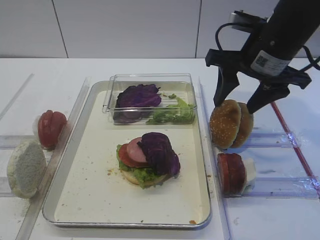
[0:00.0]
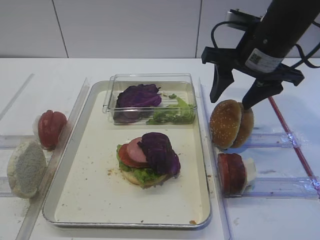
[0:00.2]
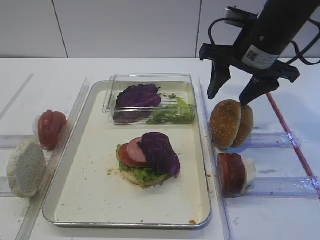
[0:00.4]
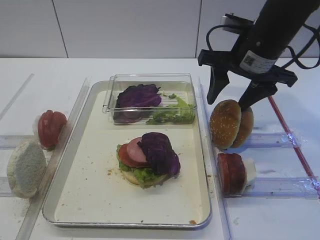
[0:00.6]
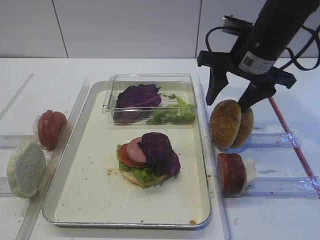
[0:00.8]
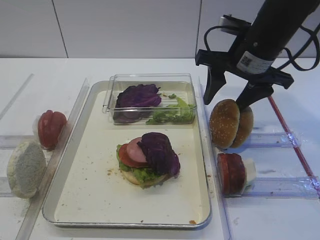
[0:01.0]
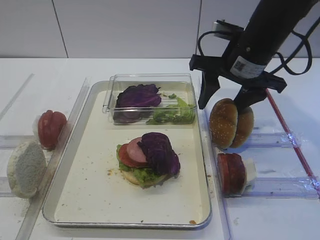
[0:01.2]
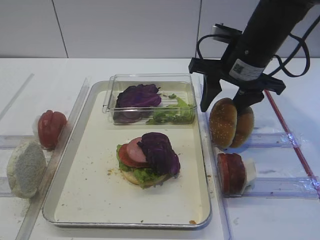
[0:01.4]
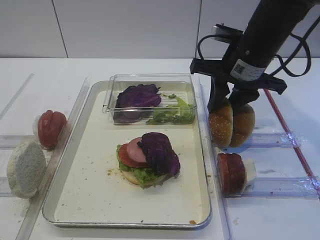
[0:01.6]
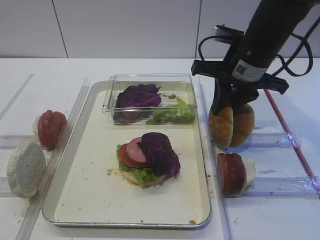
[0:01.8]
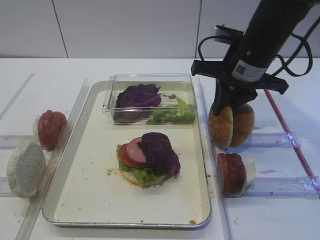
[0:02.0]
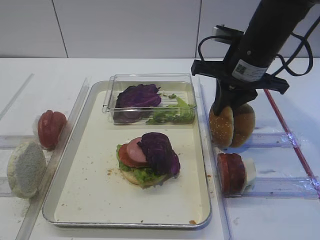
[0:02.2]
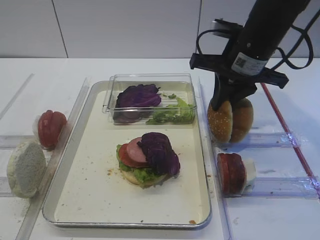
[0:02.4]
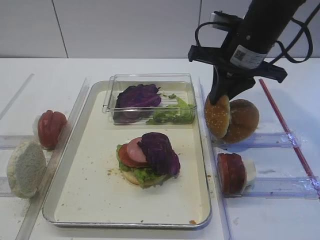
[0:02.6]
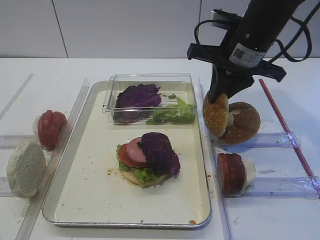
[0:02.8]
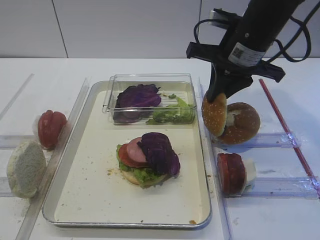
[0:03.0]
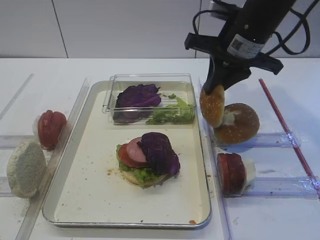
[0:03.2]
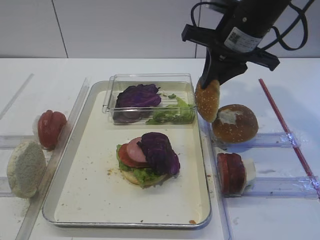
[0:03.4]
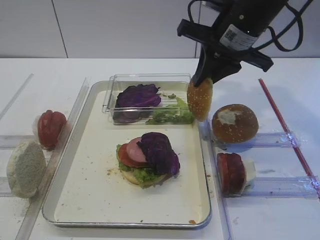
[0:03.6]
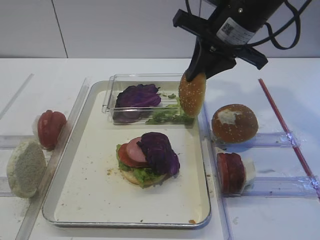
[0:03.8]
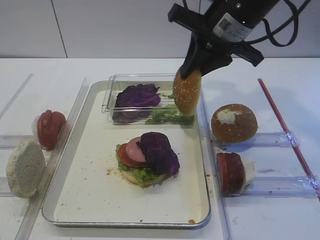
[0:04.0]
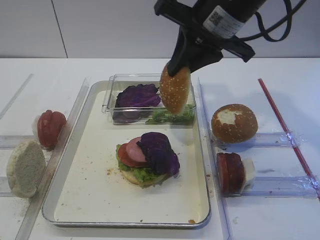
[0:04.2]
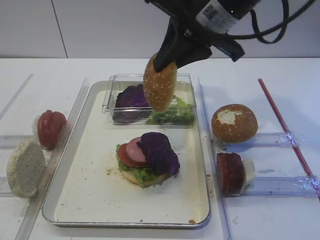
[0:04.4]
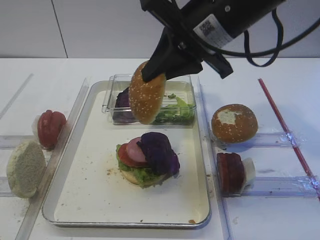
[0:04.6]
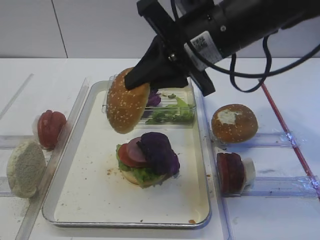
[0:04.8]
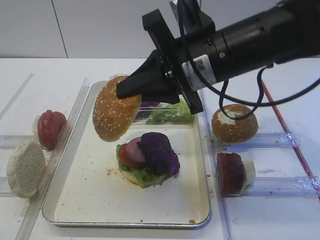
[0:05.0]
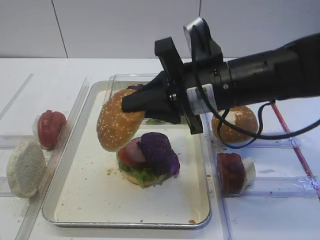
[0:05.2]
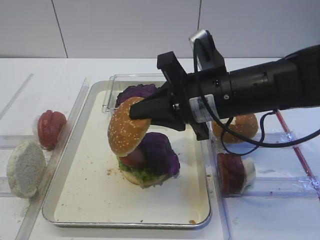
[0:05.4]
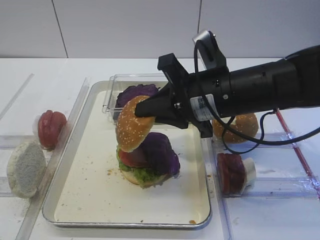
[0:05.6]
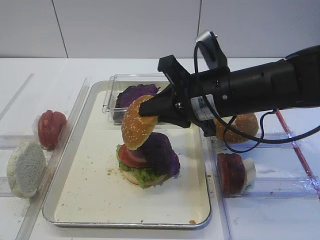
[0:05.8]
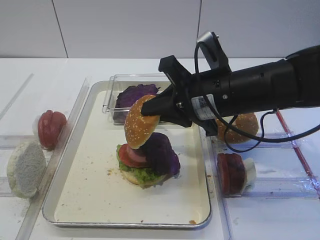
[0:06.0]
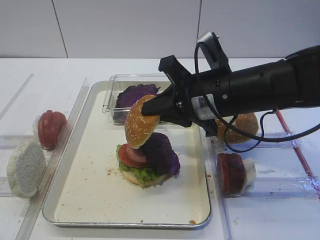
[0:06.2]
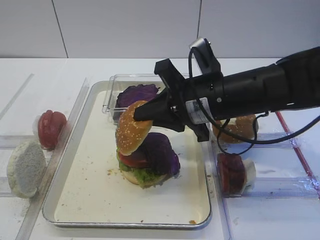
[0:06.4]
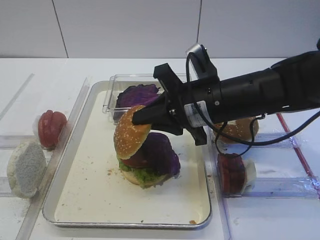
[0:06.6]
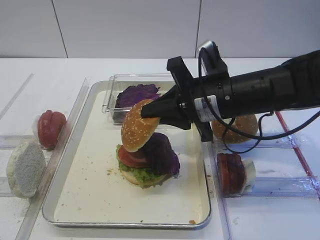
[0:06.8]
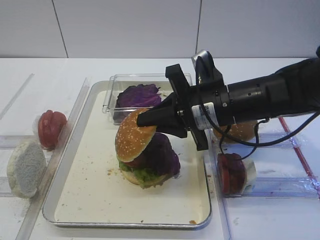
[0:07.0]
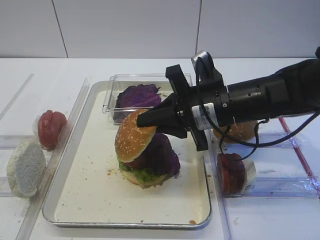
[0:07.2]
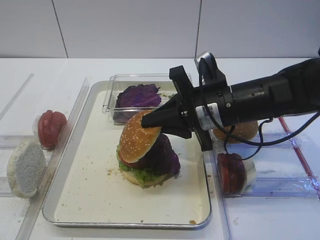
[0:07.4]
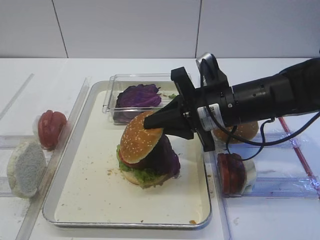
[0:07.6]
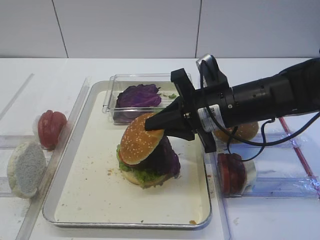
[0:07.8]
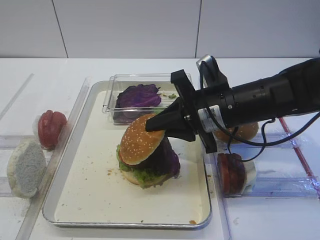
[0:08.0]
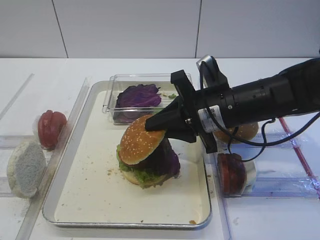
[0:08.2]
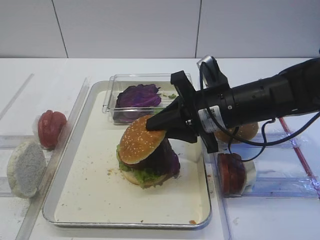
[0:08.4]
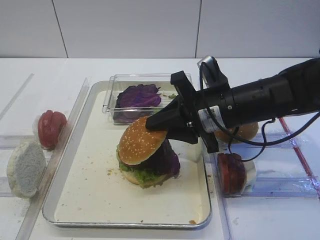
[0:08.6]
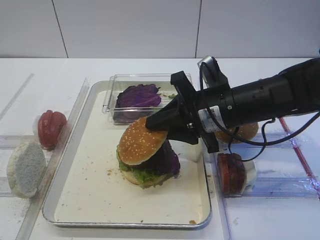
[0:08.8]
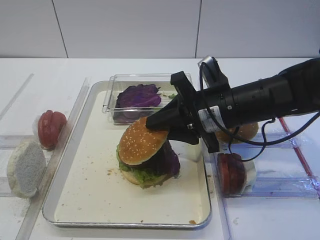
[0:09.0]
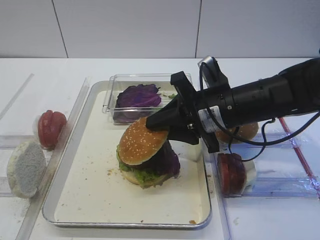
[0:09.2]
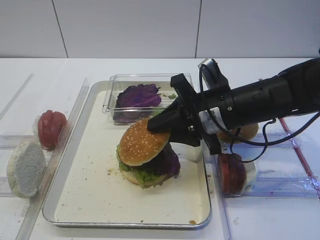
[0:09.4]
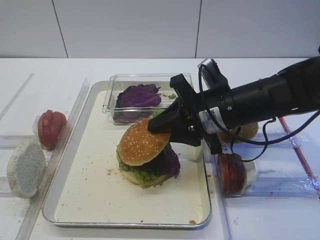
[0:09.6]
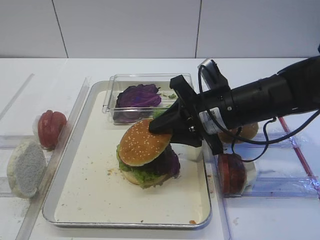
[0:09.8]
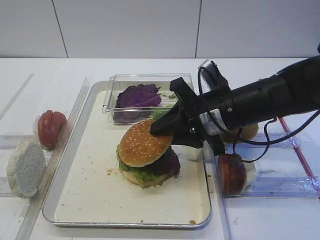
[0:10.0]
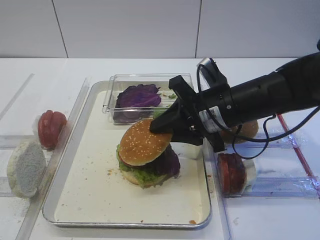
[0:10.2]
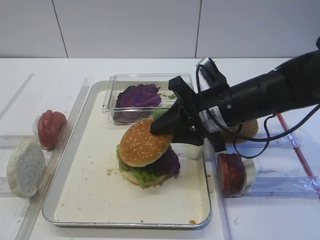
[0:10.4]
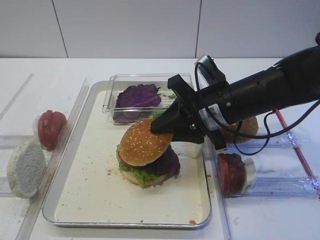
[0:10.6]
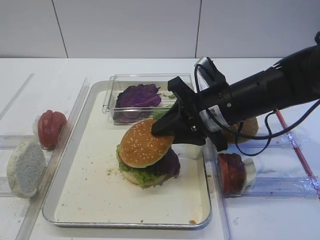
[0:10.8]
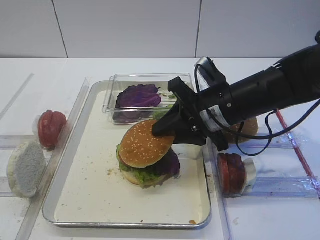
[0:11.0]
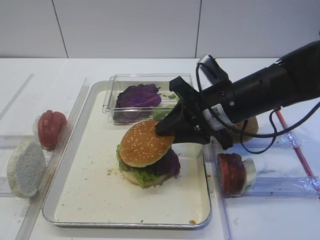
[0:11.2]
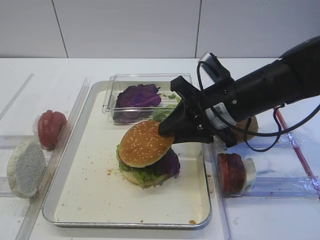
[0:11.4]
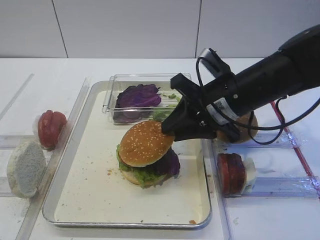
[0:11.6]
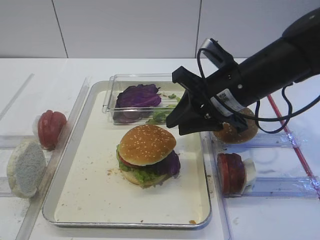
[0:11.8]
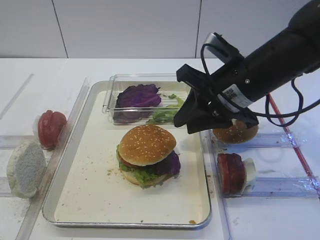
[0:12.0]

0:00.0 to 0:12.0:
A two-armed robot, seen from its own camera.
Step, 0:00.0 to 0:03.6: Pick up the hamburger lid with the right gripper.
0:00.0 to 0:01.6: The right gripper closes up.
0:01.6 to 0:03.0: The right gripper closes up.
0:03.0 to 0:04.4: The right gripper shifts some 5 cm upward.
0:04.4 to 0:06.0: The right gripper goes approximately 10 cm downward.
0:06.0 to 0:07.6: The grippers make only small movements.
0:07.6 to 0:09.0: The right gripper opens.
0:09.0 to 0:10.4: There are only small adjustments of the grippers.
0:10.4 to 0:12.0: The right gripper moves some 5 cm.

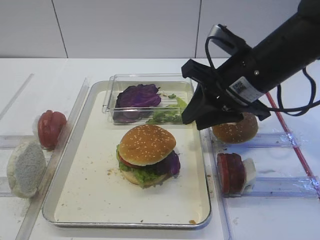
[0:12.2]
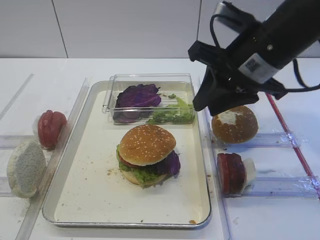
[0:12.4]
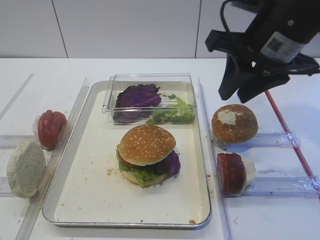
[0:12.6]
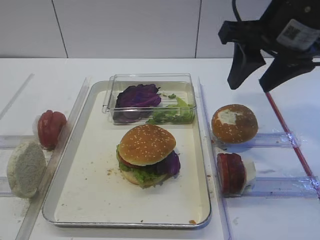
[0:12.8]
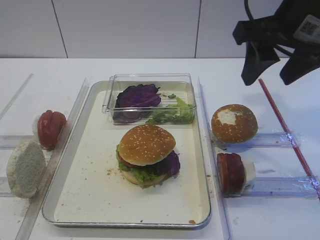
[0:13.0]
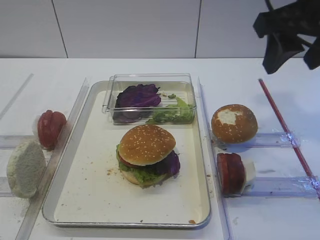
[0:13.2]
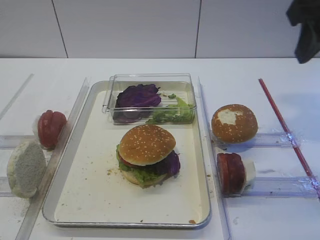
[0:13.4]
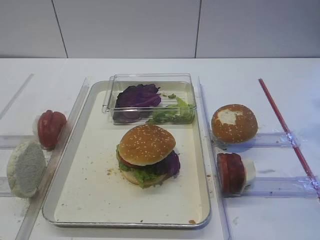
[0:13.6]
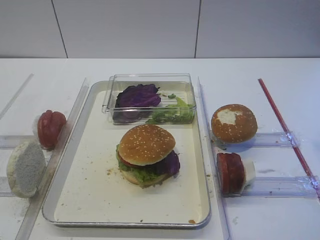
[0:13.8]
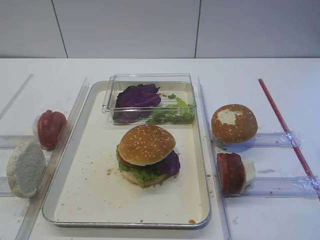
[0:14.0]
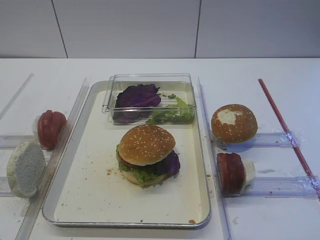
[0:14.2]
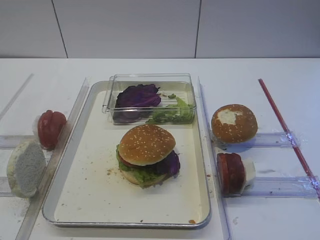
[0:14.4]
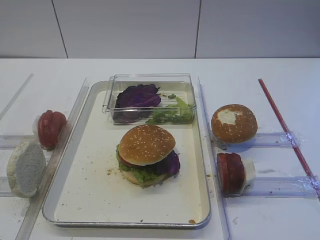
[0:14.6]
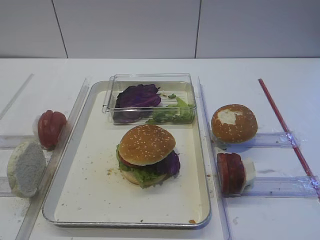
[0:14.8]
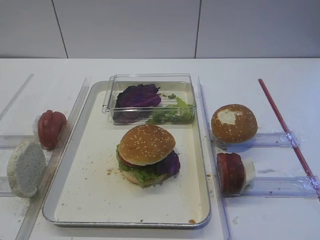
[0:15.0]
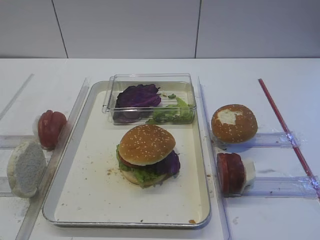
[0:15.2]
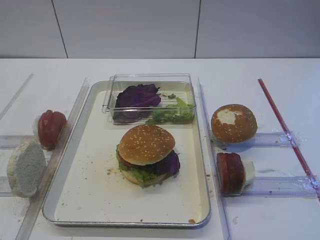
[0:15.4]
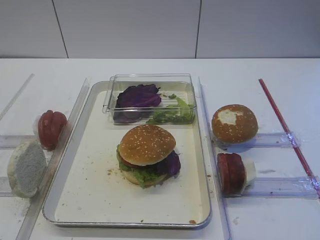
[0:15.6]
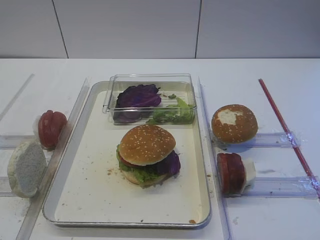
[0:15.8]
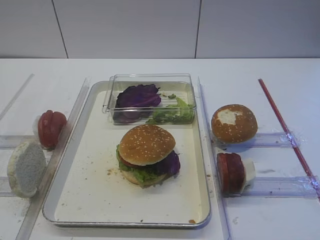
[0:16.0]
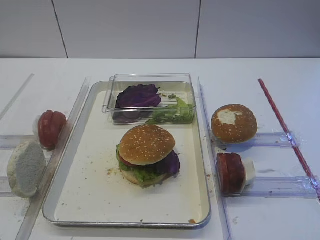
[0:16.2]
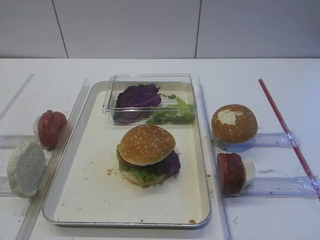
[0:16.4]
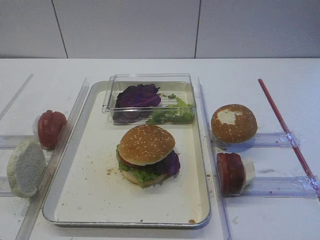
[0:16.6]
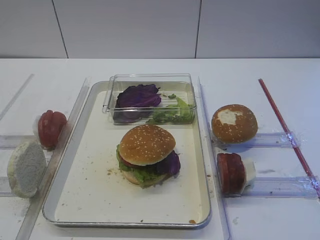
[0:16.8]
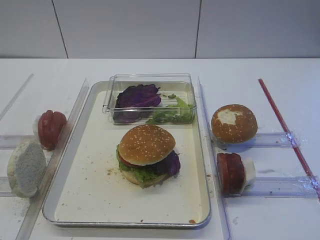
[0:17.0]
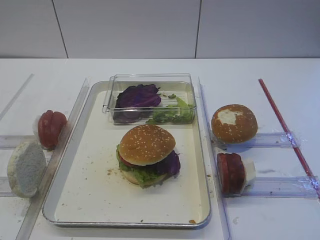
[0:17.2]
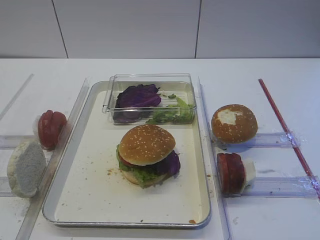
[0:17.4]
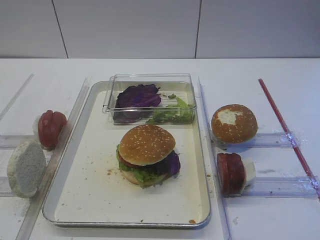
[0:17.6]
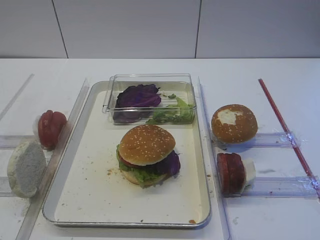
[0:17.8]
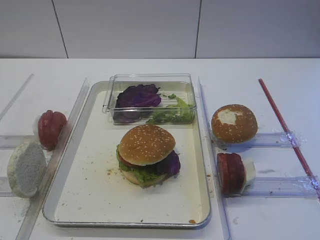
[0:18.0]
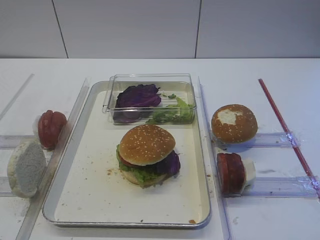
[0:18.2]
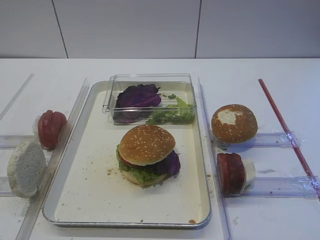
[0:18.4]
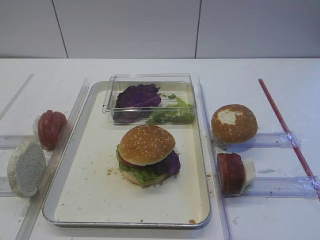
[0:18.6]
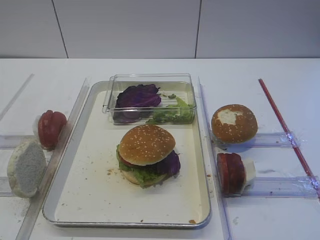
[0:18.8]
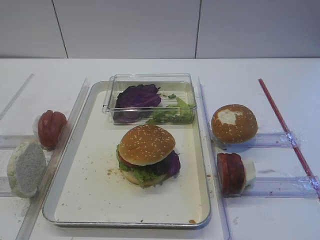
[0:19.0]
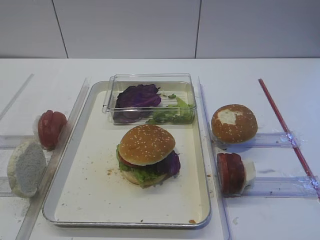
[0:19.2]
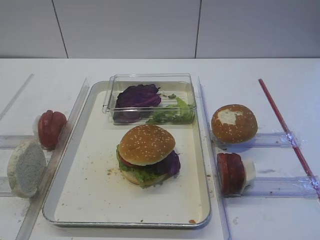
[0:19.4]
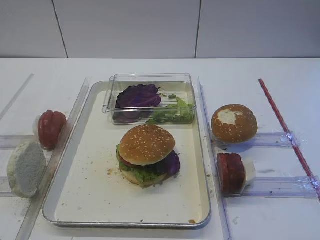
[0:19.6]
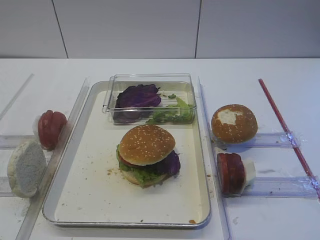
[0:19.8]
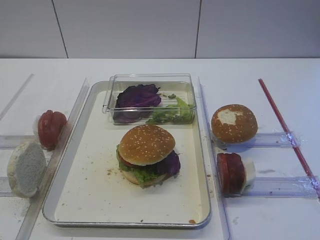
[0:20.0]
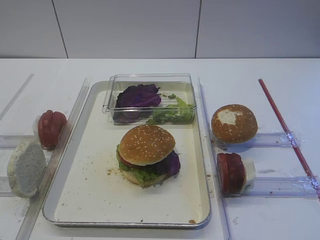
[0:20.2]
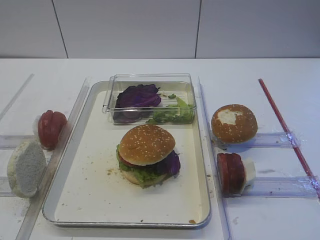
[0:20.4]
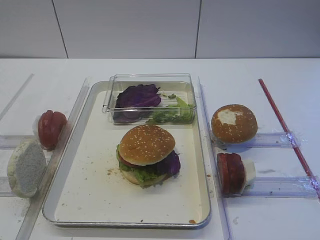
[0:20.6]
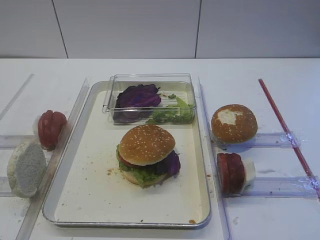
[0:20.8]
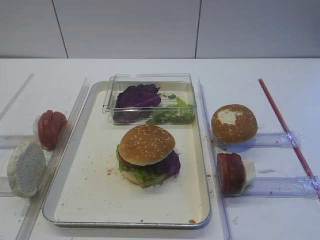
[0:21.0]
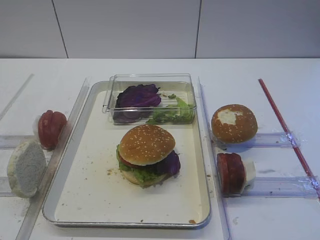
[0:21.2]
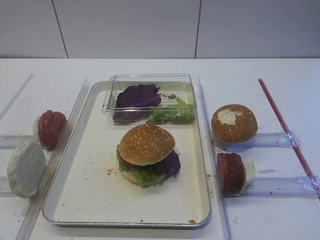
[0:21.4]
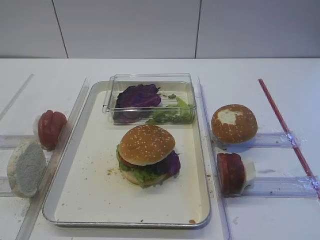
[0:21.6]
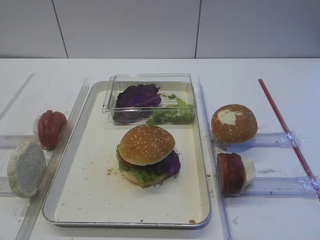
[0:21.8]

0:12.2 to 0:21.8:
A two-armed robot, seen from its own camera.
0:12.2 to 0:13.8: The right gripper shifts about 20 cm to the right, upward and backward, and opens.
0:17.0 to 0:21.8: Both grippers stay put.

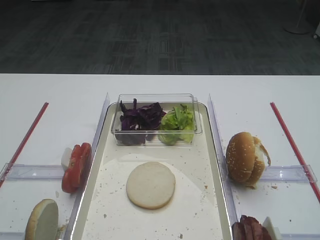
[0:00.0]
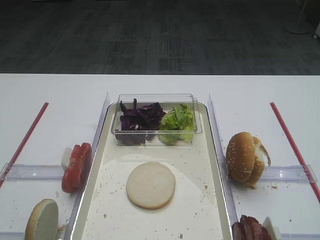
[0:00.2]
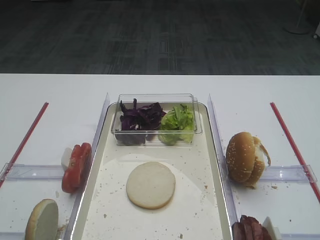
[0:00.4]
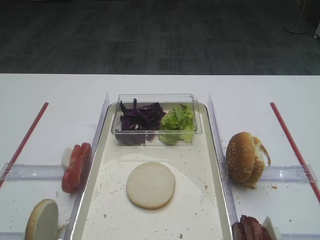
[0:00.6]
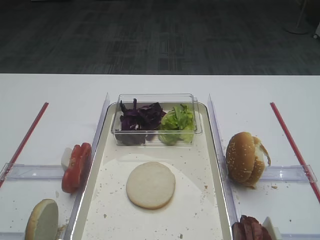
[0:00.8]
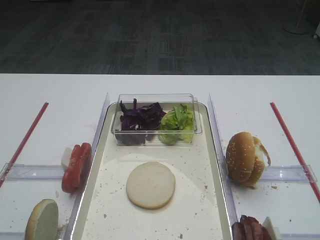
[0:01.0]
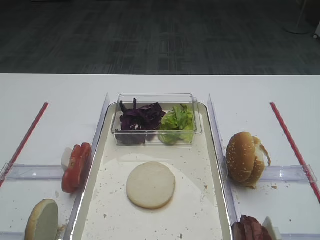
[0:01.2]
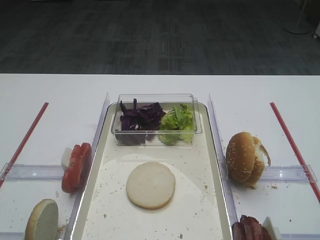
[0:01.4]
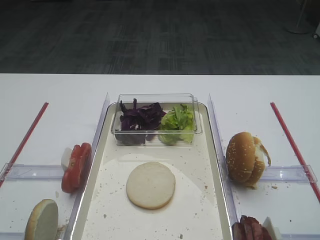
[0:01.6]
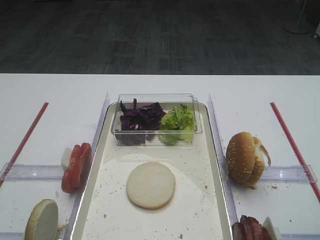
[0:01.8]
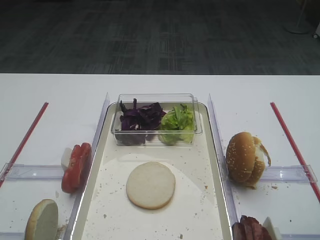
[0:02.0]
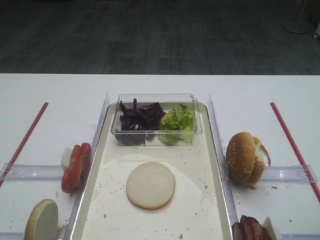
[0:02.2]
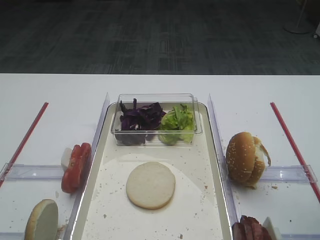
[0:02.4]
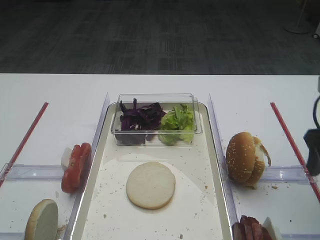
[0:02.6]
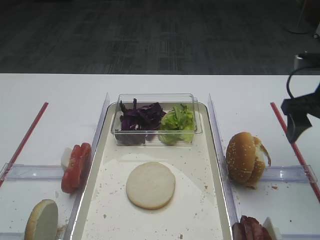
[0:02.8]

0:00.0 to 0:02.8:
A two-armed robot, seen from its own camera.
0:01.4 to 0:02.8: The right gripper shifts approximately 25 cm forward.
